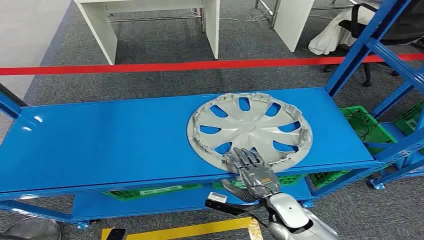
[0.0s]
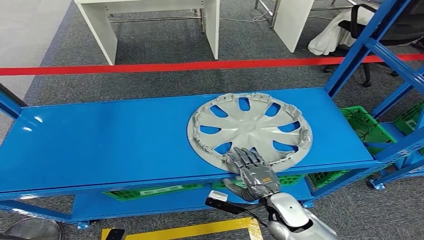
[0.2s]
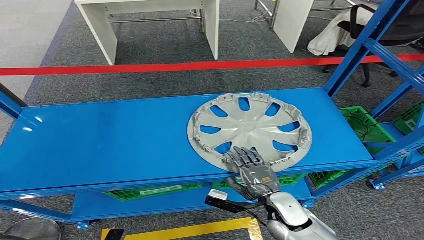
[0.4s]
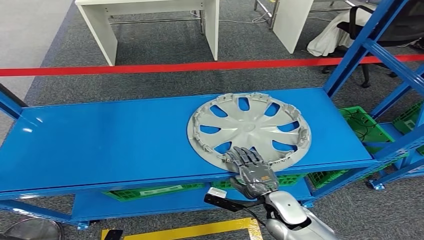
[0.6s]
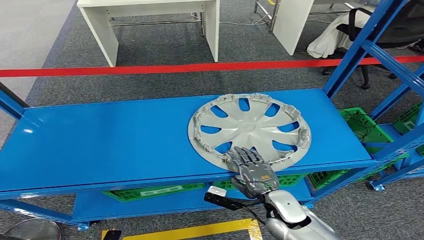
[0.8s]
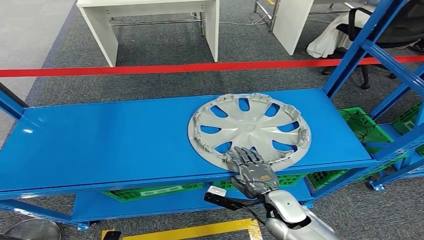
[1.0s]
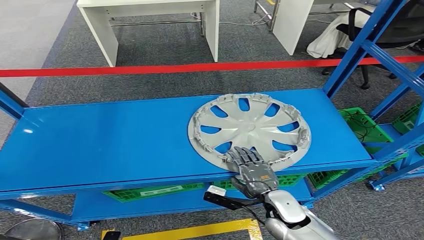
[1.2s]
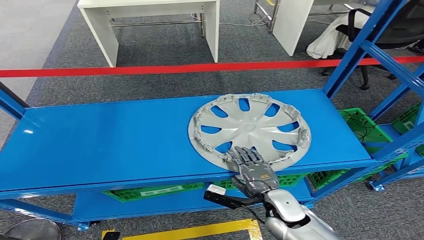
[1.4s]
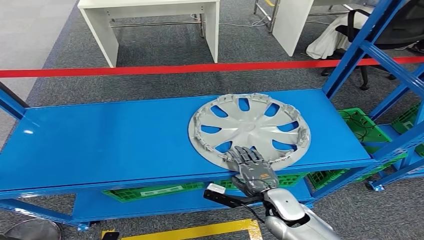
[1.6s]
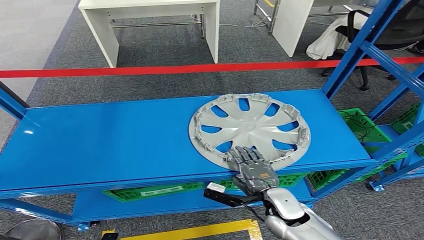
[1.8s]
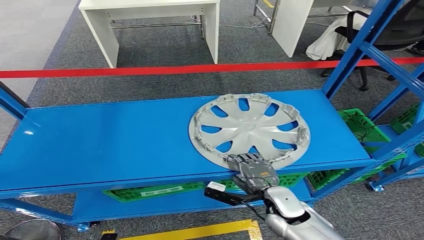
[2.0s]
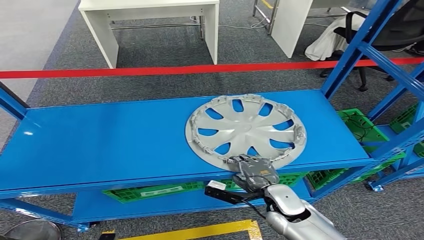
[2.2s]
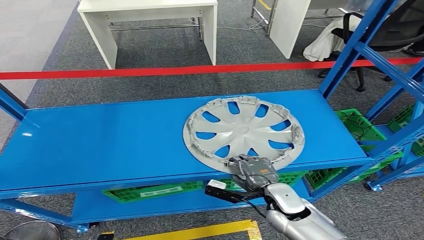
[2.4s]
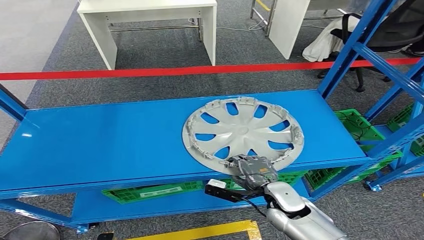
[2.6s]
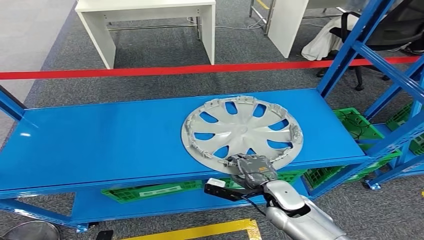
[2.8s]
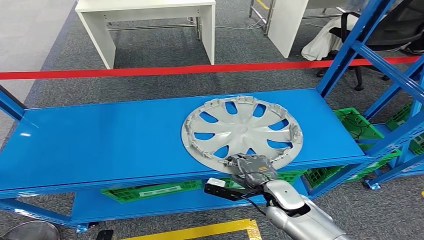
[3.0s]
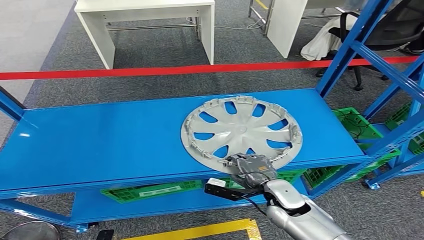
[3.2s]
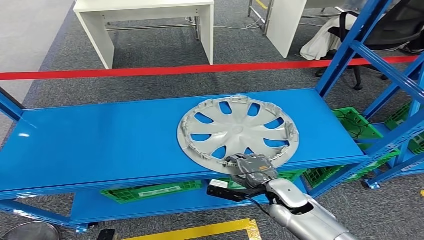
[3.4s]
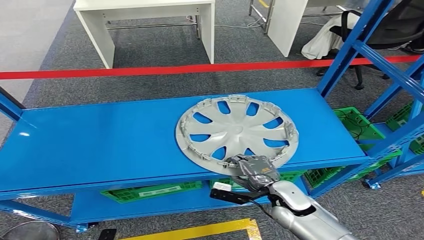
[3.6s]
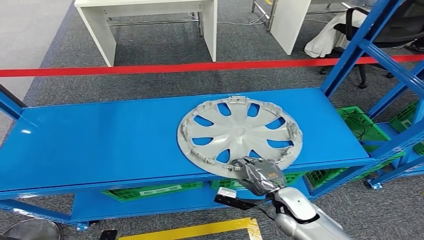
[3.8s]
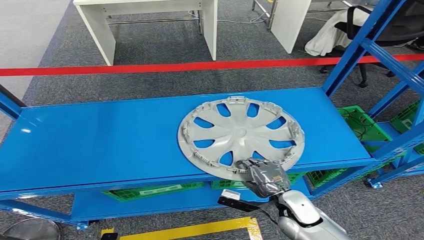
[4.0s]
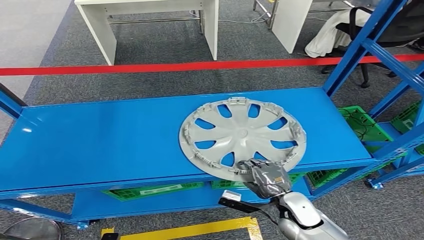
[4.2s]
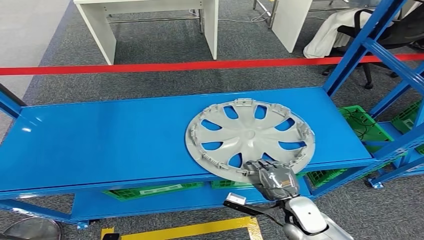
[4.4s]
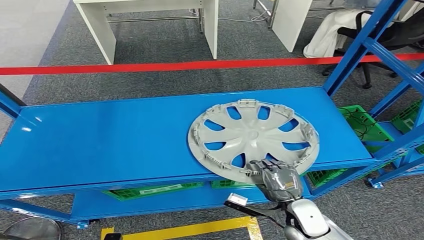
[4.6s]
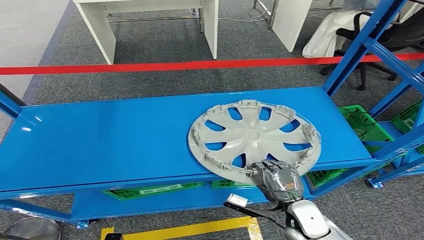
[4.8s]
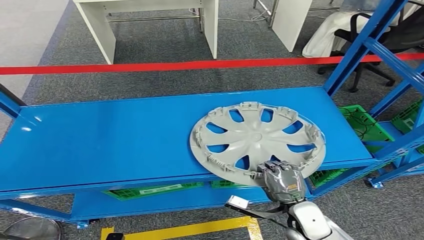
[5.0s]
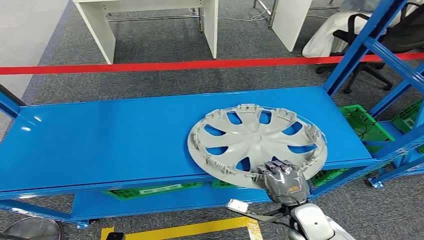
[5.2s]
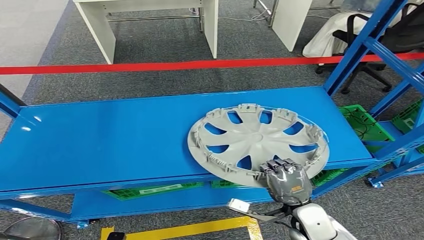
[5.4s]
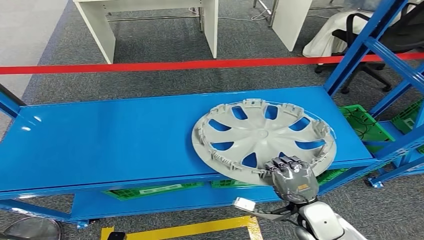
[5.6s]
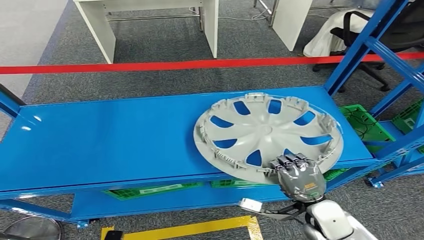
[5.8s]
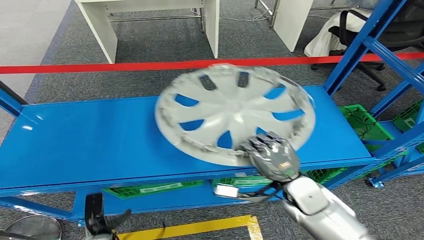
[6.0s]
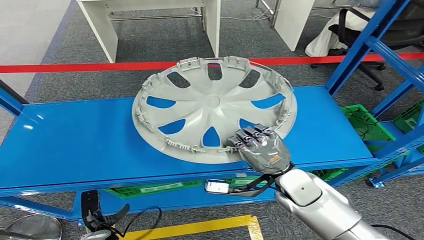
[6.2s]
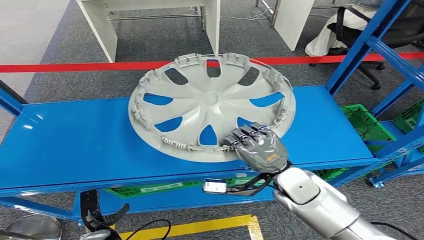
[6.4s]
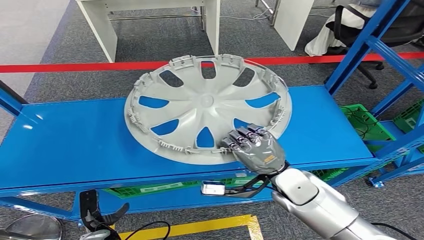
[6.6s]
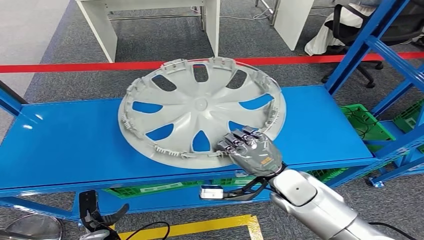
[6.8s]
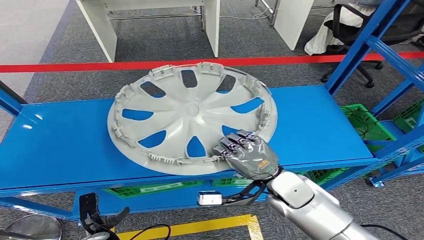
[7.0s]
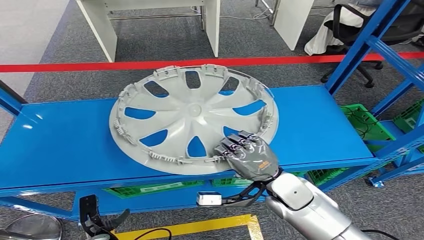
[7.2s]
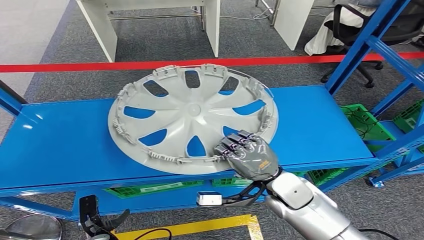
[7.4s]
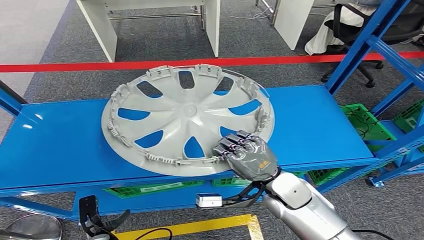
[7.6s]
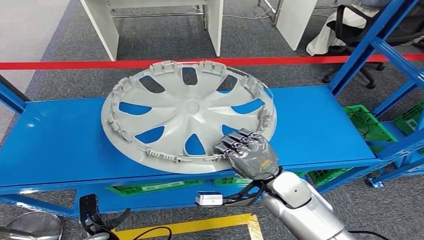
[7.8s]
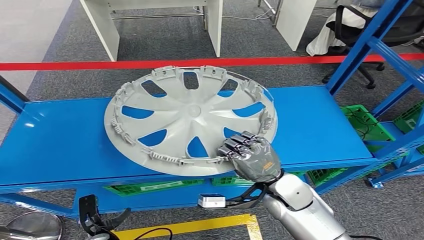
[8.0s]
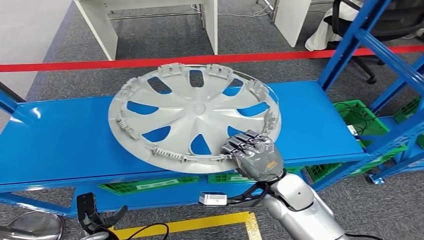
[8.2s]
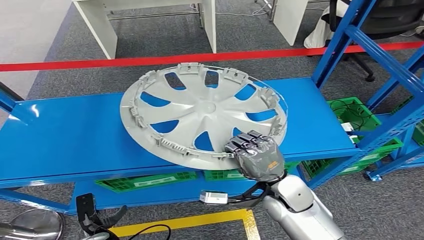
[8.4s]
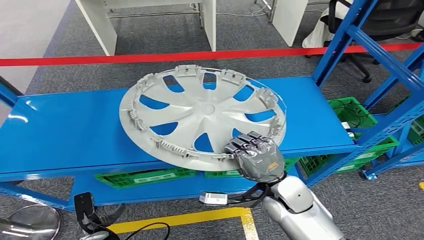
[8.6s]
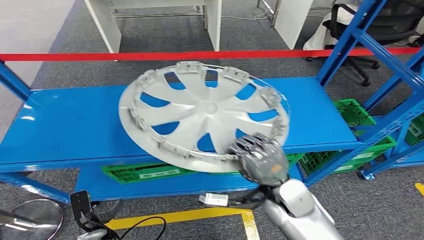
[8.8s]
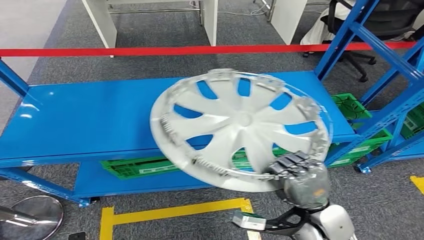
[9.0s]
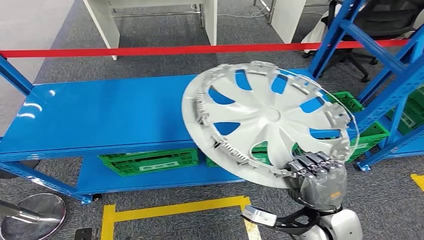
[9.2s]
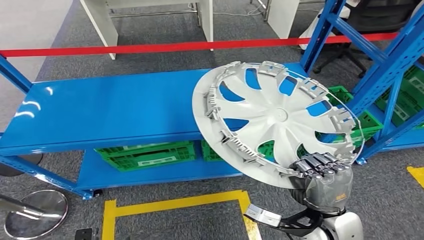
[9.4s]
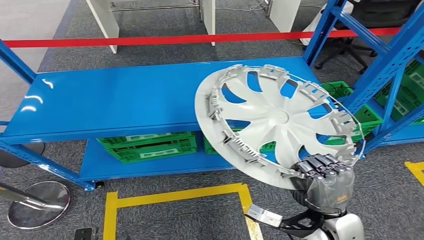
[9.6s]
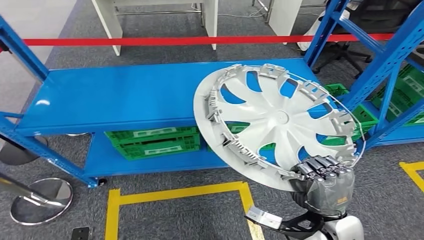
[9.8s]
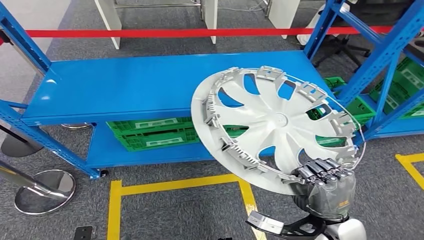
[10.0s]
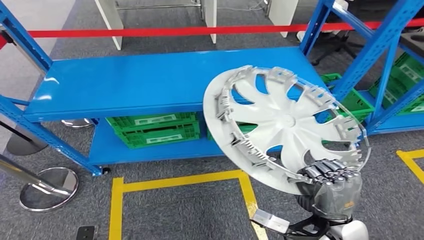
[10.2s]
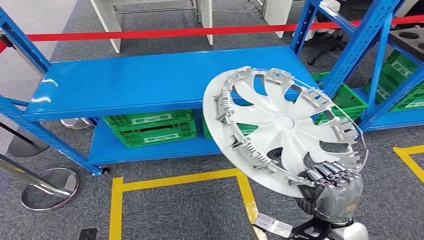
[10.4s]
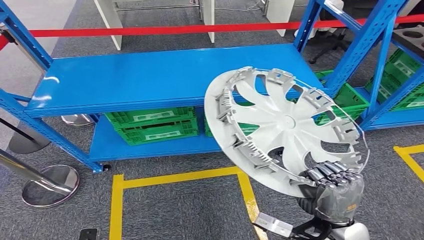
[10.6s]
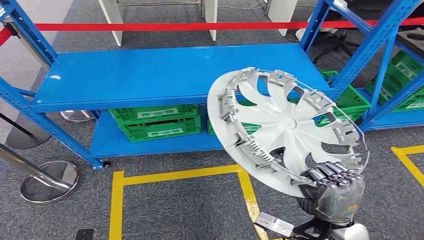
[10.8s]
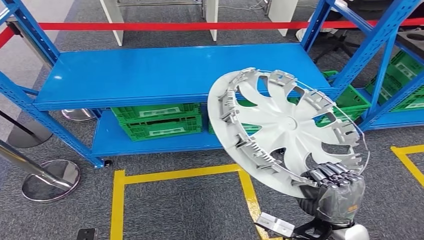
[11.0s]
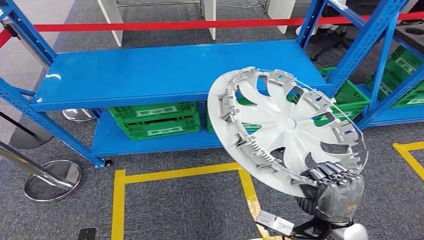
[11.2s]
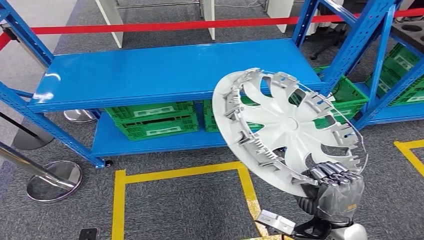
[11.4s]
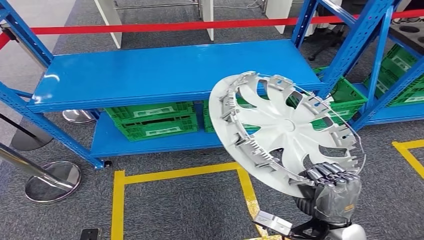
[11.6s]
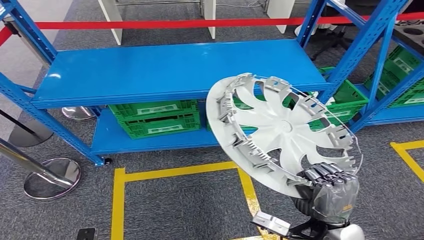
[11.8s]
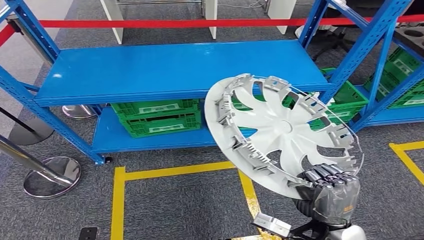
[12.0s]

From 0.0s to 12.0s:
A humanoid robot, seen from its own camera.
Step, from 0.0s to 5.8s: Pick up the small component from the shelf.

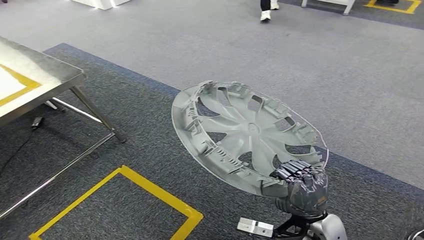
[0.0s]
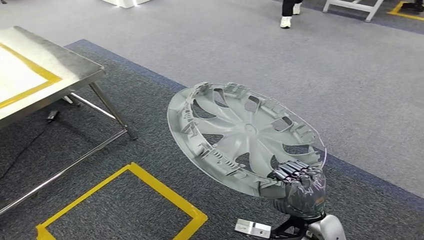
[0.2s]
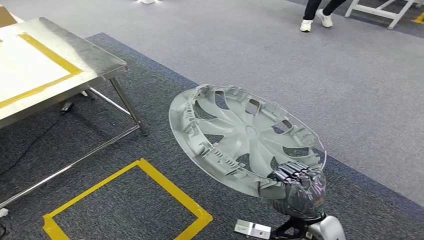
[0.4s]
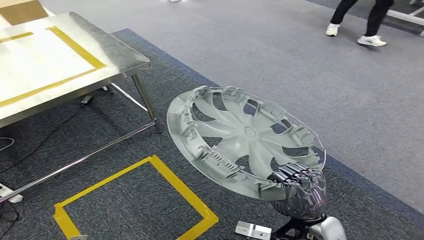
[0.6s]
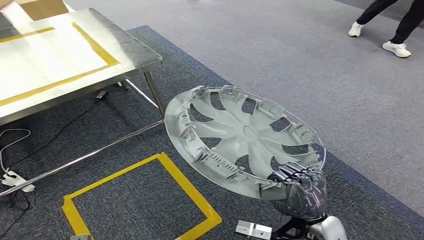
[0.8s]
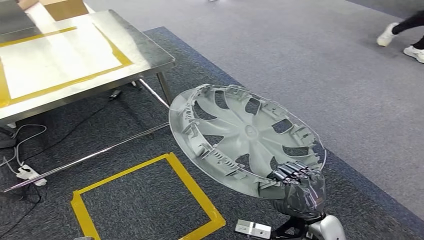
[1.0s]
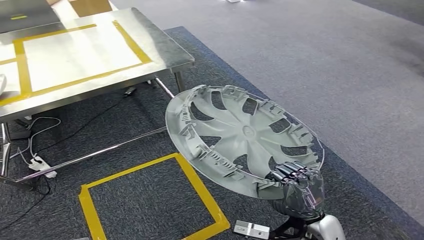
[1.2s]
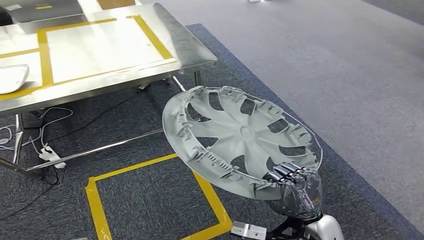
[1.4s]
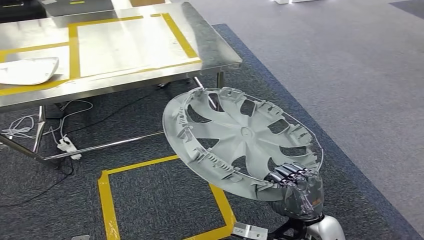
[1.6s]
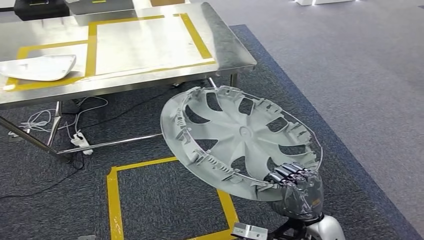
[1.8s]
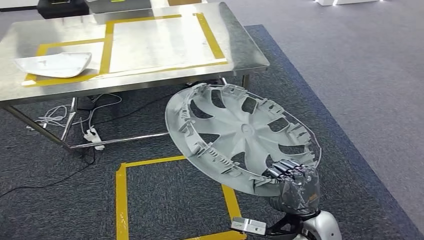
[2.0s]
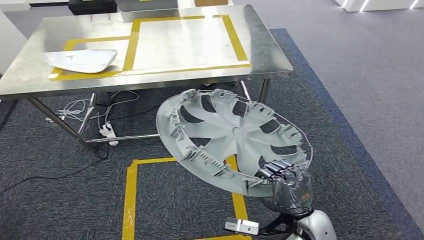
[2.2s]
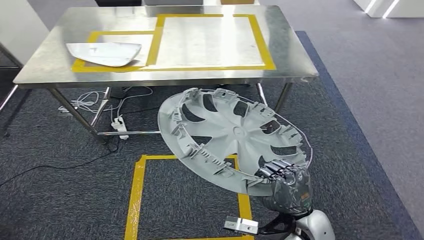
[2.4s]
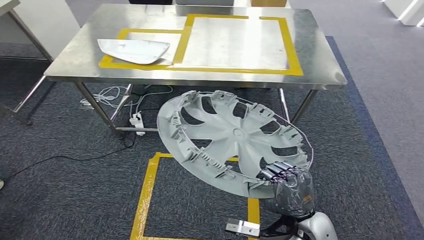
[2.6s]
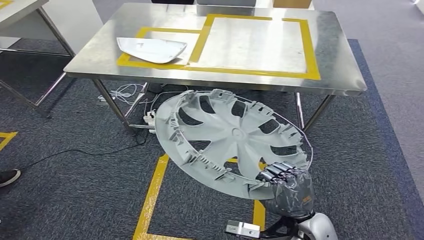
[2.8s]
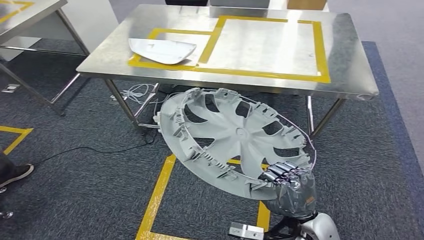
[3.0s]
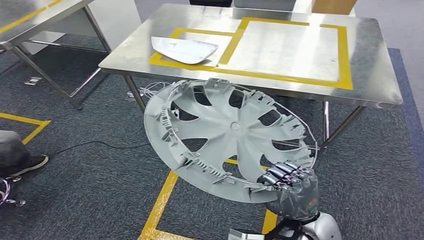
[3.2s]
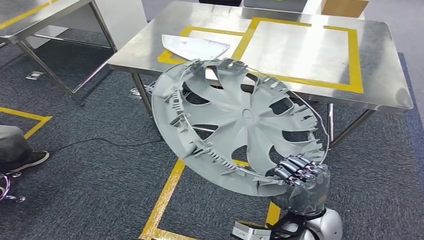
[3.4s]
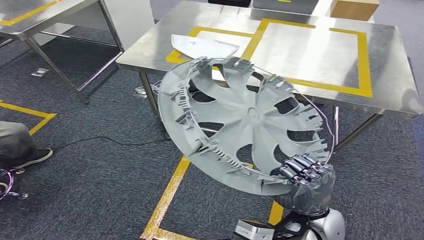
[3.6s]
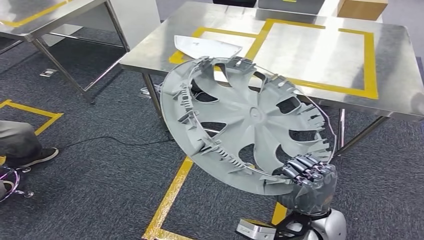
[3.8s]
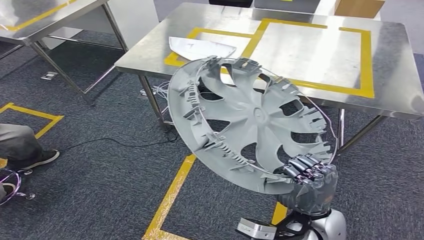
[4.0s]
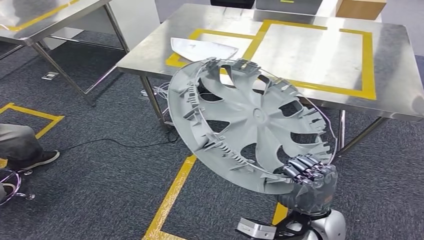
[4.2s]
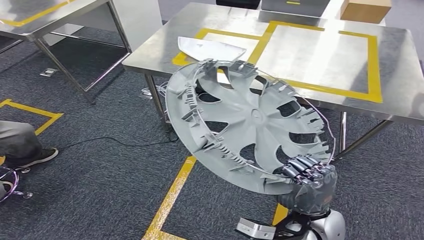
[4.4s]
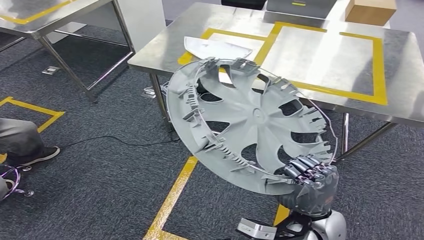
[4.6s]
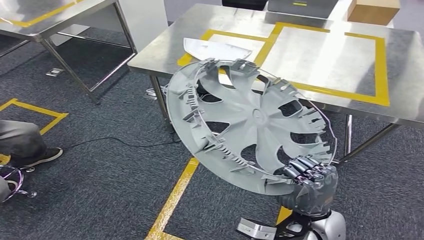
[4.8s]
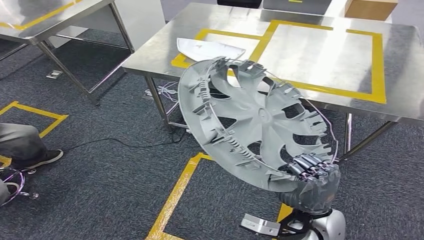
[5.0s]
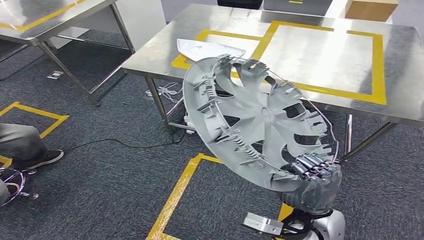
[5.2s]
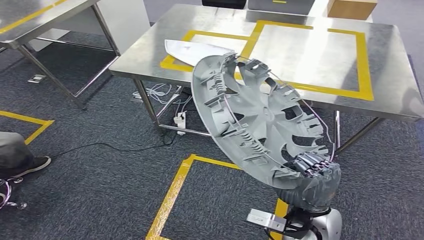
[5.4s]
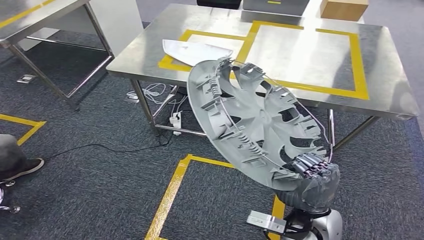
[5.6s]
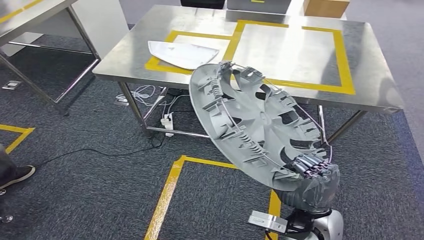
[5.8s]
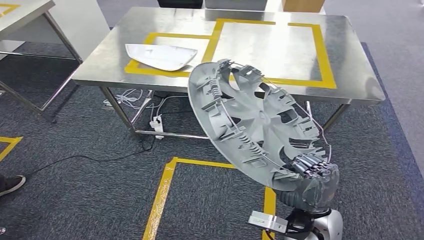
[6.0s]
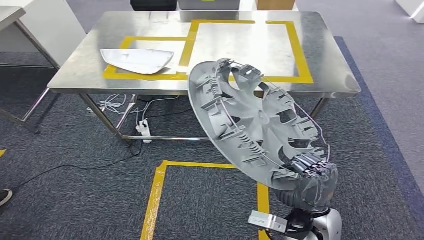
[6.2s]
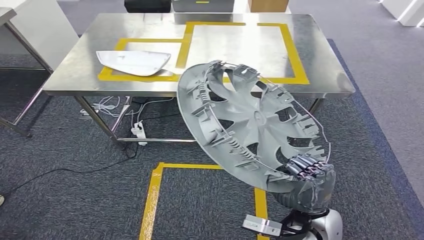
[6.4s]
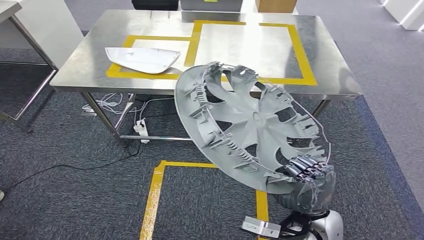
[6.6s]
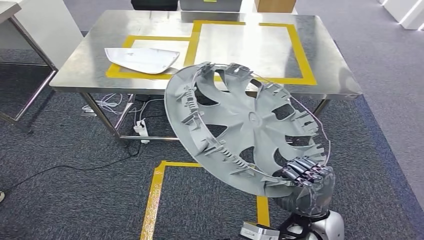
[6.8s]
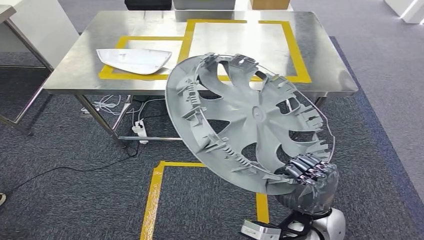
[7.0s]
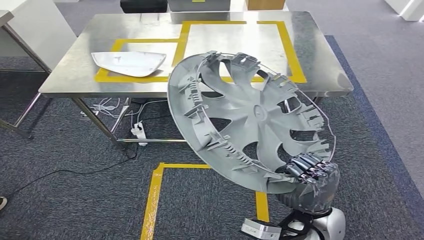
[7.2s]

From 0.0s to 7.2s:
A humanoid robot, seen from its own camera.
Step, from 0.0s to 4.0s: Move the small component to the workbench.
